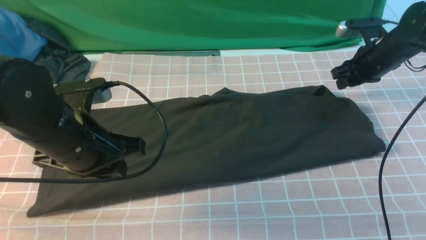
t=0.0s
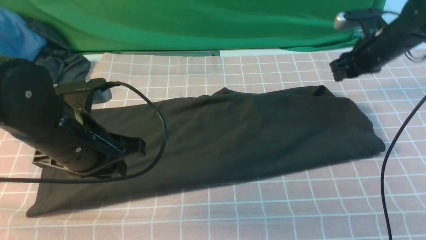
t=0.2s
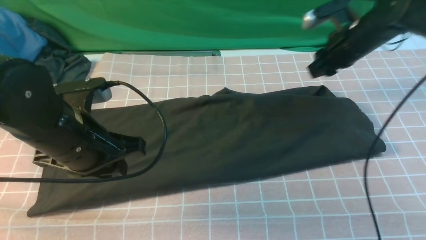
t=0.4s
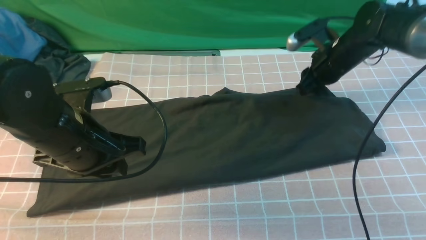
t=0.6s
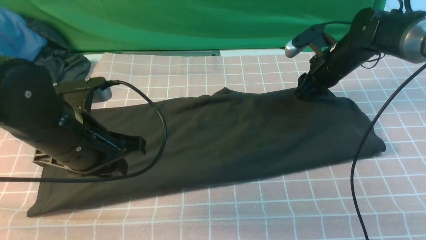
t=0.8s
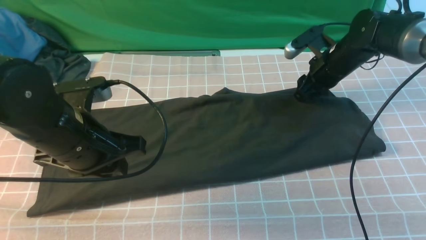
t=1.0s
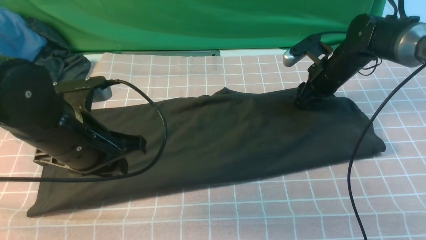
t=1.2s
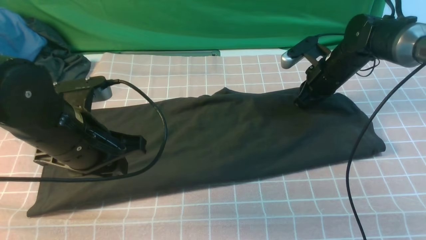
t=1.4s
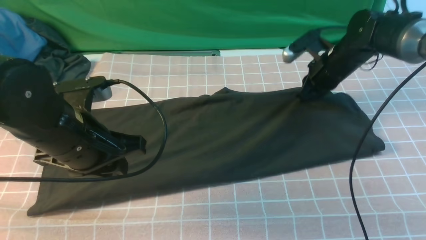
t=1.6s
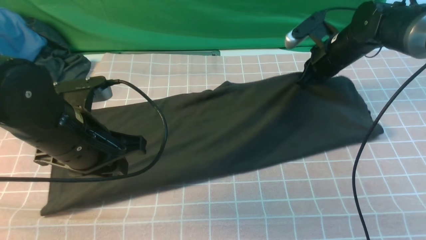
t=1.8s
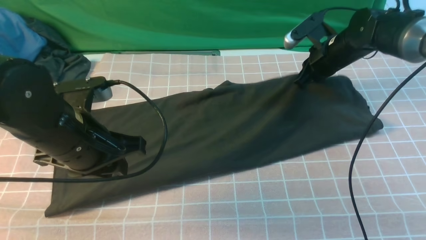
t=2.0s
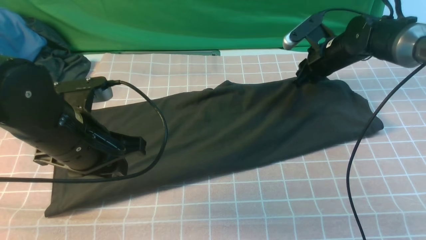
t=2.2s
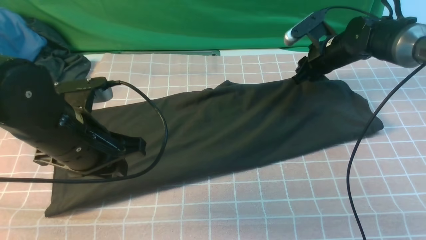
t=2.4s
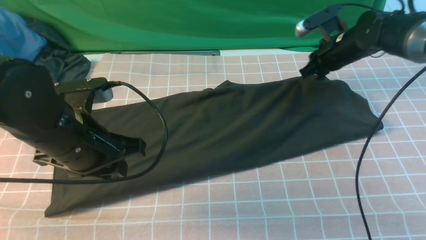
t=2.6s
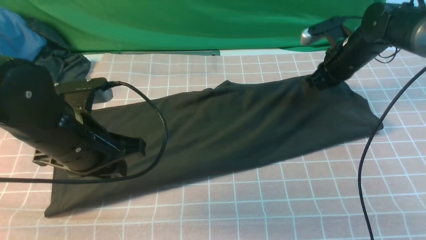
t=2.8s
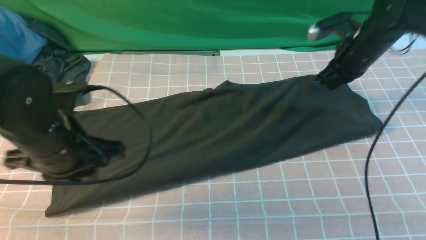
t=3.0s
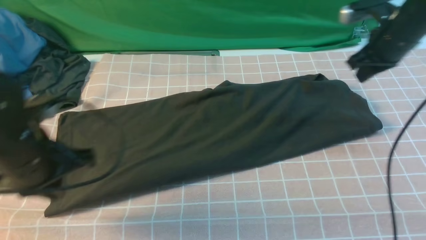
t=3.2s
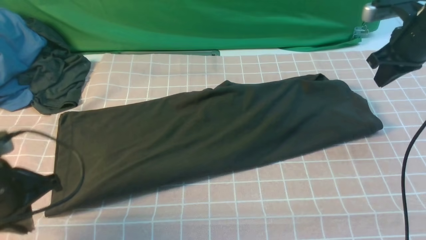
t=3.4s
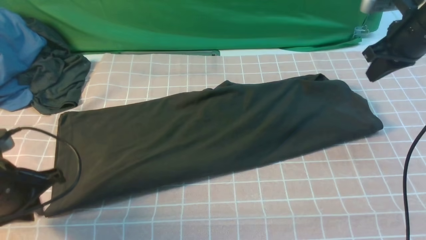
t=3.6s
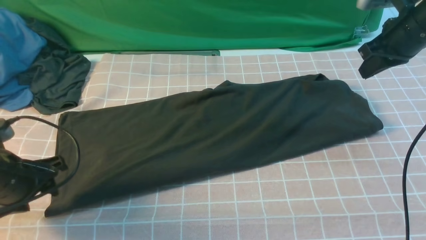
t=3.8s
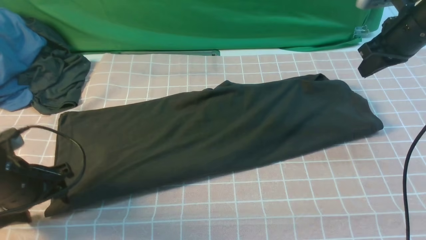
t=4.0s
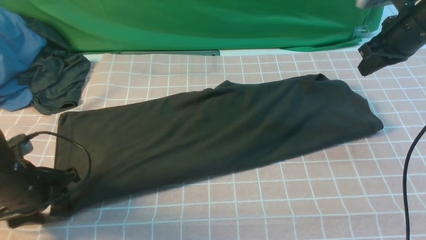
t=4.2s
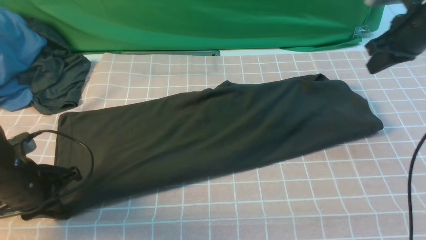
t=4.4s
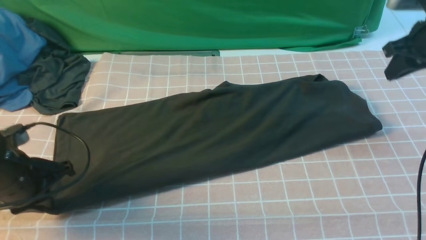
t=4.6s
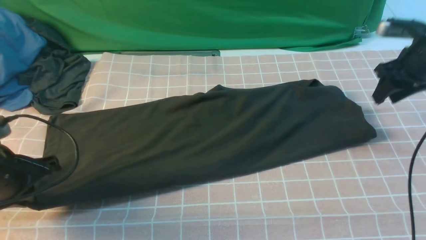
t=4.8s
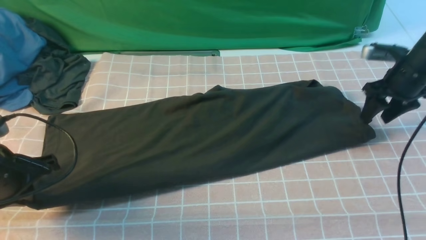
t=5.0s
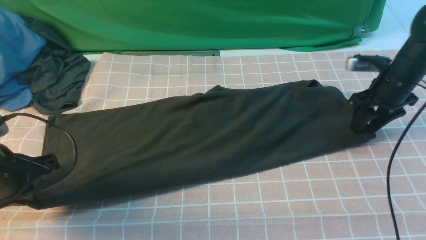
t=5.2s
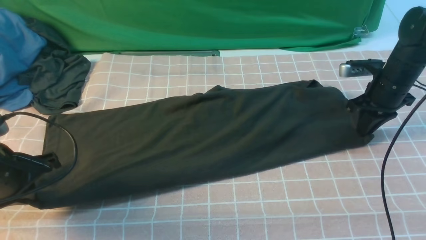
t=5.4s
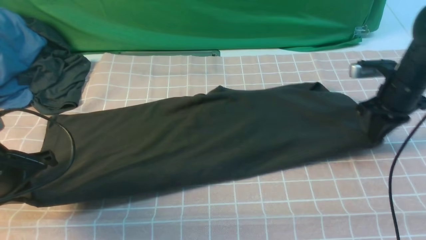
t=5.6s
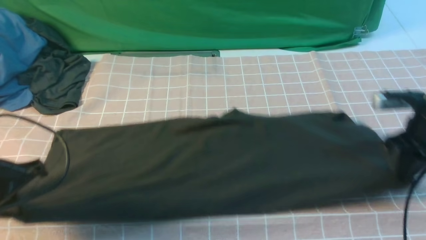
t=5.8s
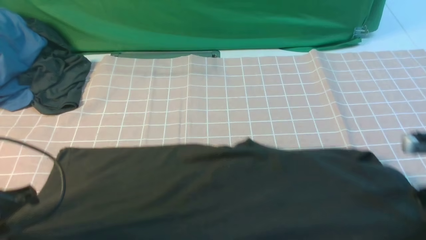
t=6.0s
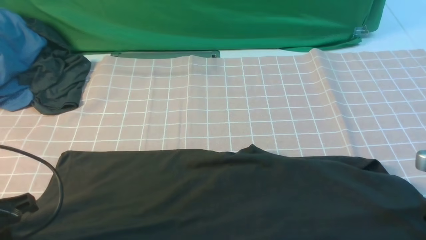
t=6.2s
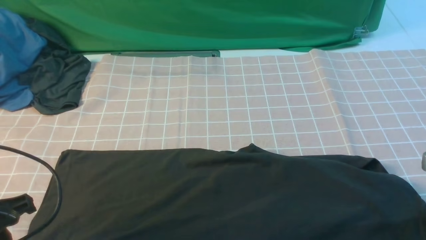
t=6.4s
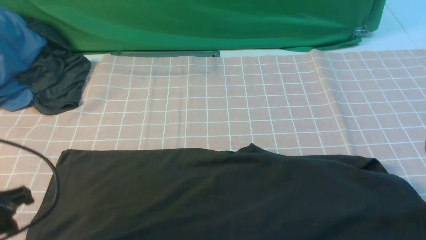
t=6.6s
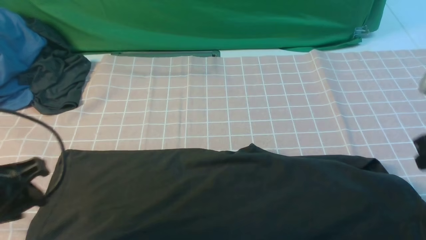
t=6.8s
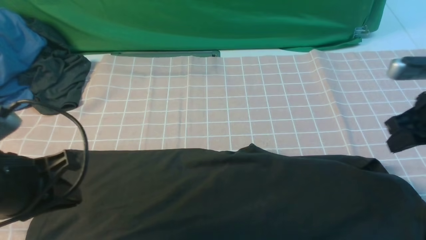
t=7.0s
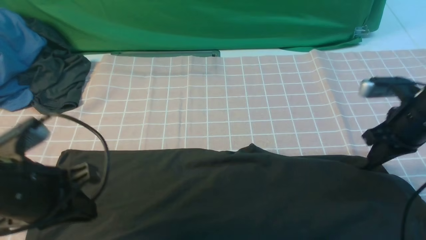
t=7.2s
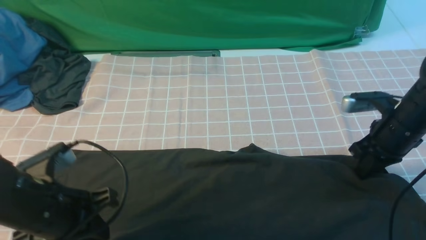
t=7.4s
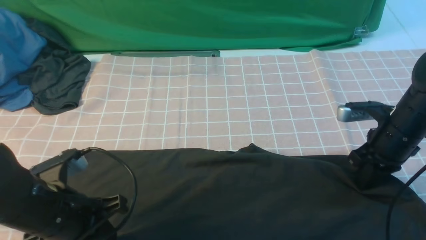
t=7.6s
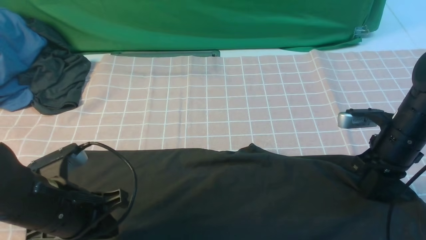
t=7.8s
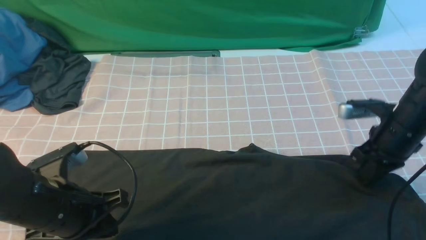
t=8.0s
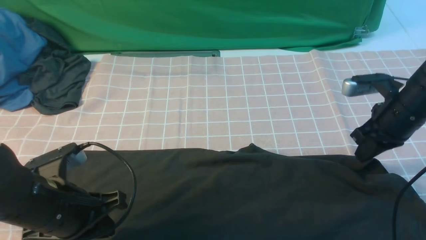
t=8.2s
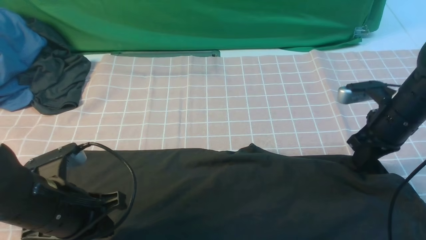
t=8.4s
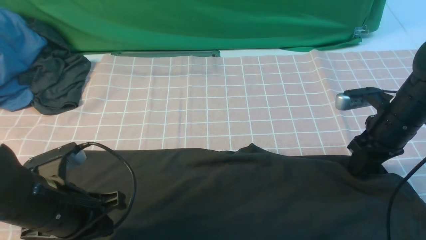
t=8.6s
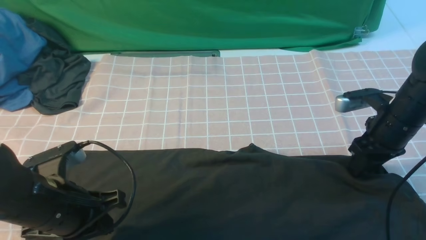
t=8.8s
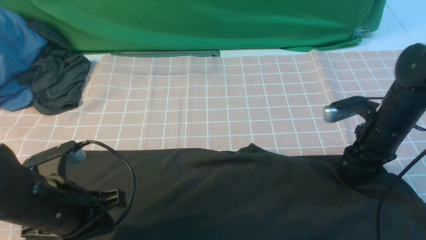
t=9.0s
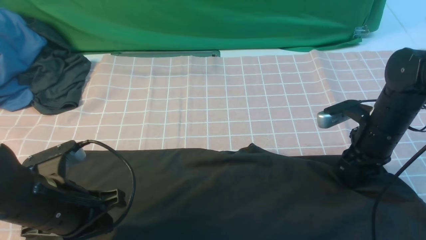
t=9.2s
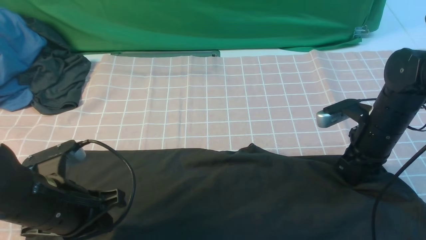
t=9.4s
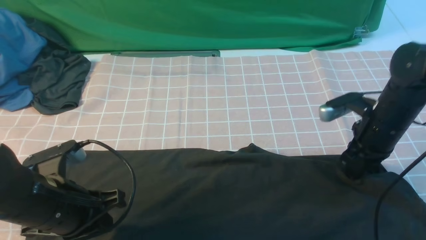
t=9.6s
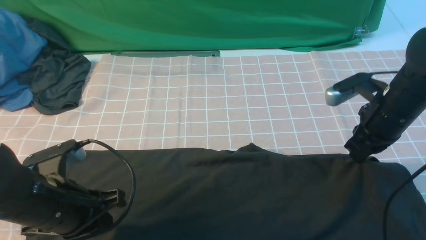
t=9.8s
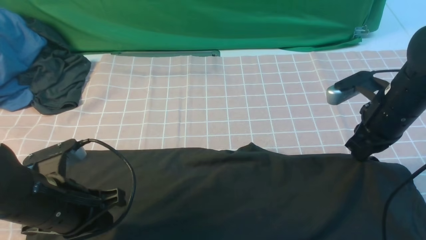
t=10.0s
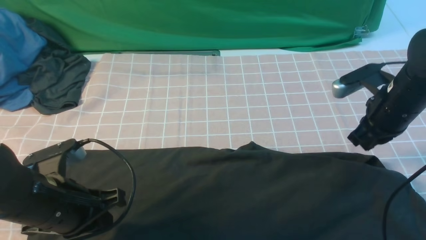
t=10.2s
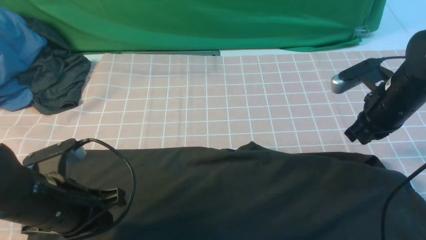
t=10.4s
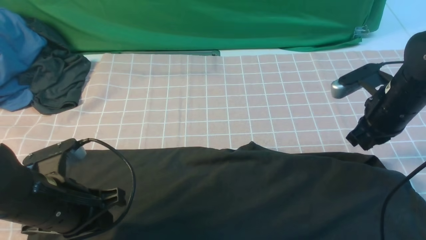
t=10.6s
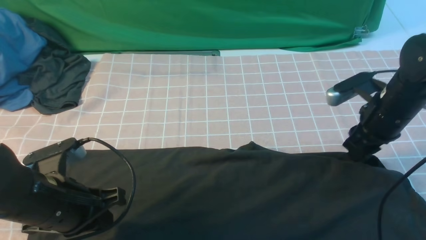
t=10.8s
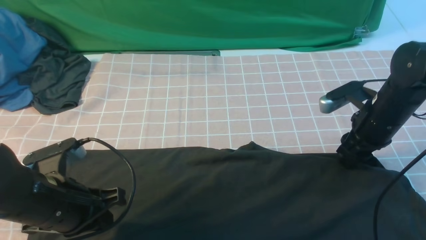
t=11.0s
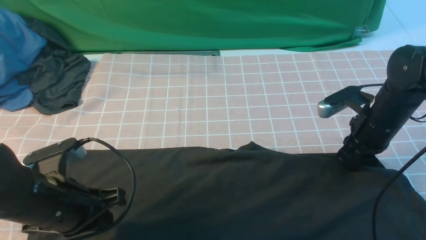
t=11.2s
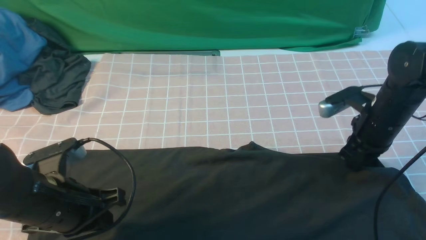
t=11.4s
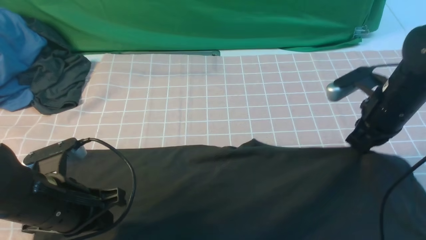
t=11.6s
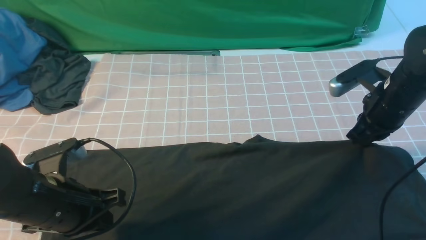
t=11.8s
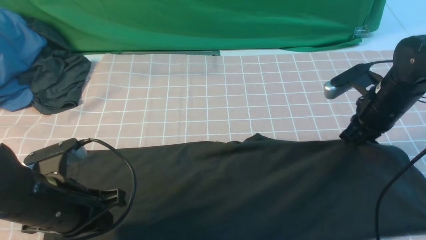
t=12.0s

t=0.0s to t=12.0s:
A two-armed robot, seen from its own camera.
t=0.0s to t=1.6s: The right gripper goes about 10 cm to the left, and closes up.
t=1.6s to t=3.0s: The right gripper moves some 5 cm, and opens, then closes once more.
t=3.0s to t=4.4s: The left gripper goes roughly 10 cm downward and to the left, and opens, then closes again. Meanwhile the right gripper shifts some 10 cm to the right and upward.
t=4.4s to t=6.0s: The right gripper travels backward and downward by approximately 20 cm, and opens, then closes again; the left gripper heads backward and upward, covering about 10 cm.
t=6.0s to t=7.6s: The right gripper heads forward and to the left, covering about 10 cm, and opens and closes again; the left gripper travels to the right by approximately 10 cm, and opens, then closes again.
t=7.6s to t=9.0s: The right gripper opens its fingers.
t=9.0s to t=10.4s: The right gripper closes its fingers.
t=10.4s to t=12.0s: The right gripper opens and closes again.

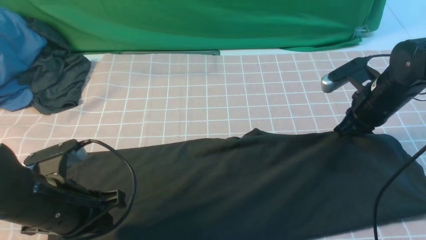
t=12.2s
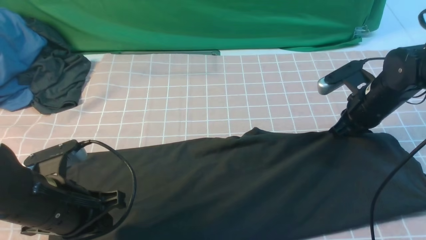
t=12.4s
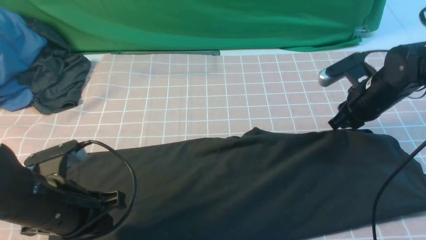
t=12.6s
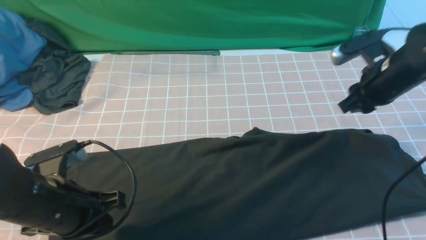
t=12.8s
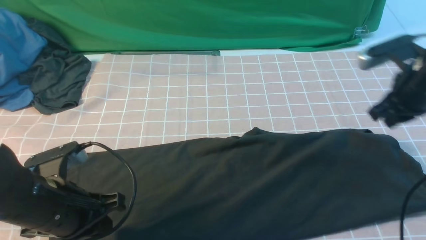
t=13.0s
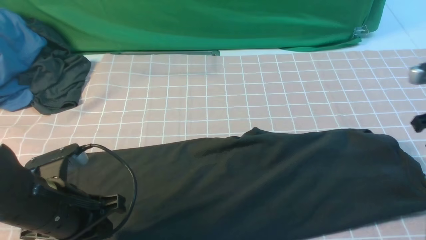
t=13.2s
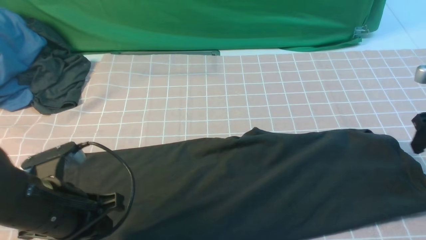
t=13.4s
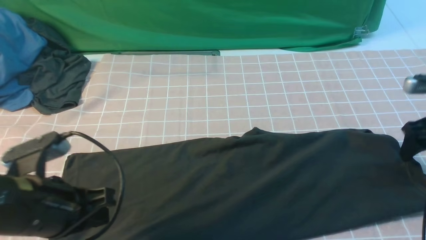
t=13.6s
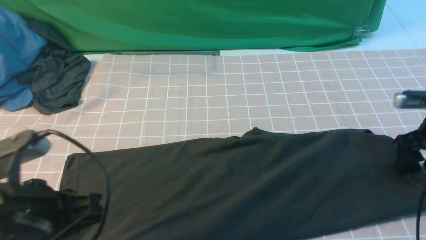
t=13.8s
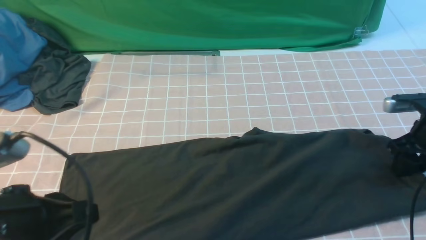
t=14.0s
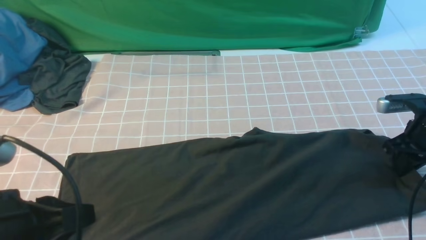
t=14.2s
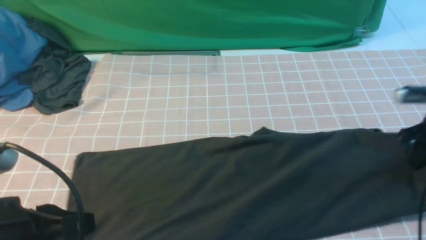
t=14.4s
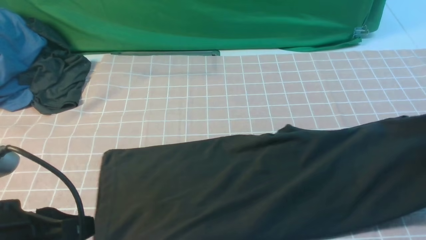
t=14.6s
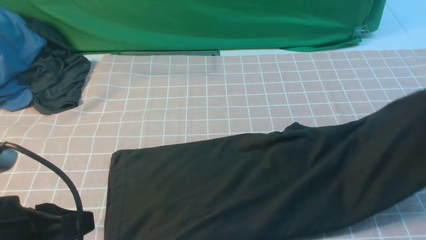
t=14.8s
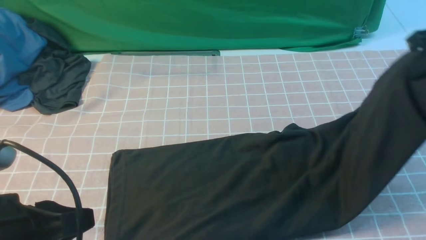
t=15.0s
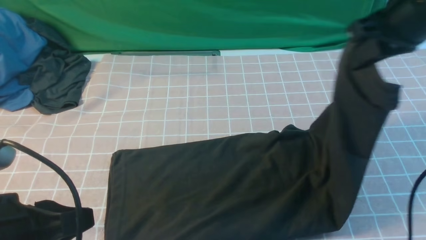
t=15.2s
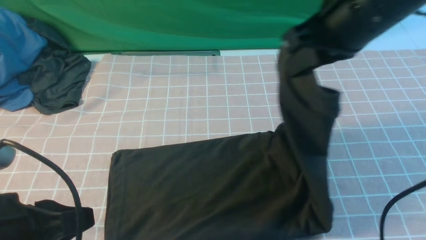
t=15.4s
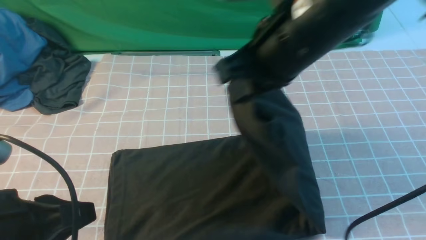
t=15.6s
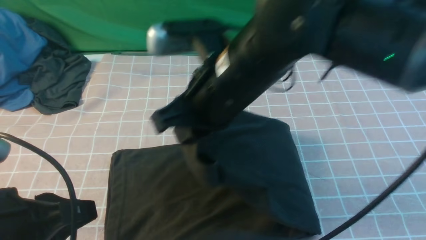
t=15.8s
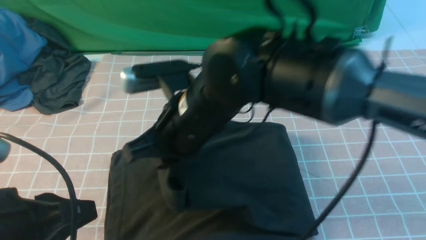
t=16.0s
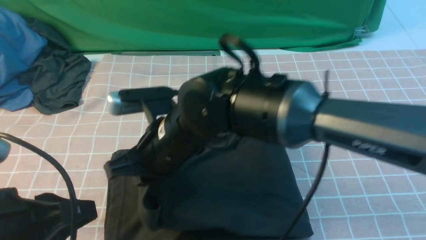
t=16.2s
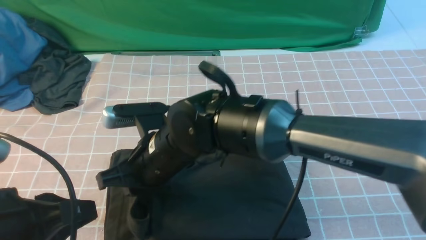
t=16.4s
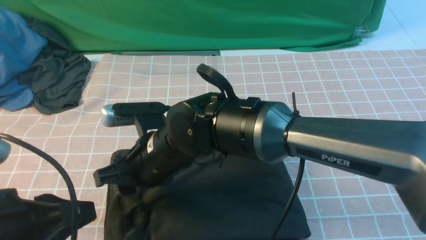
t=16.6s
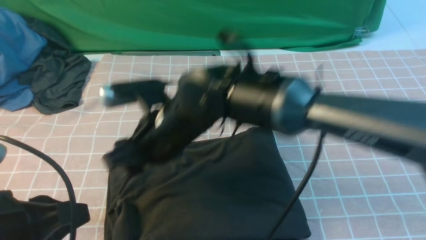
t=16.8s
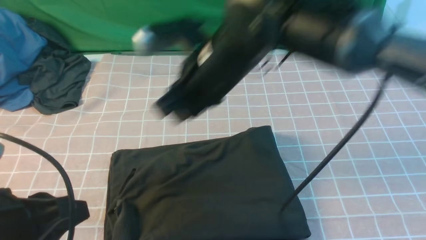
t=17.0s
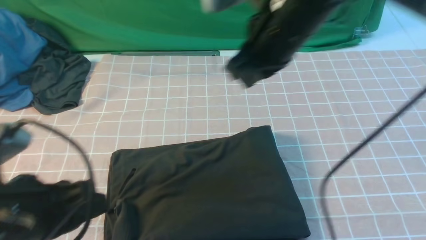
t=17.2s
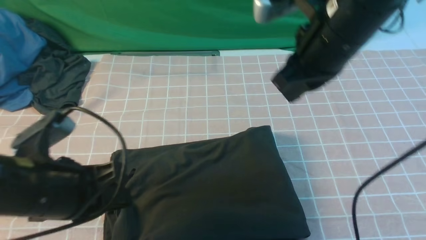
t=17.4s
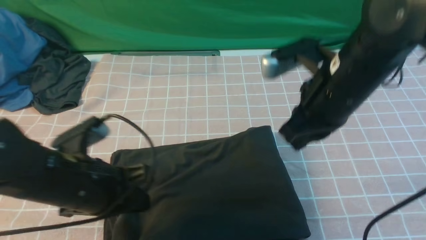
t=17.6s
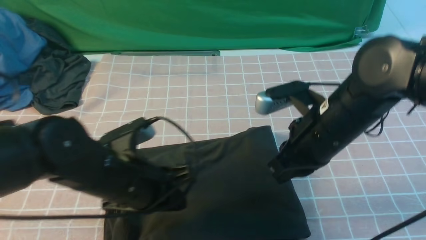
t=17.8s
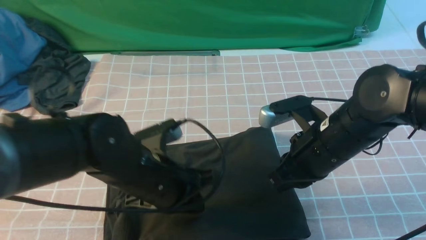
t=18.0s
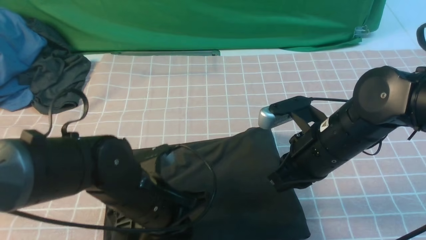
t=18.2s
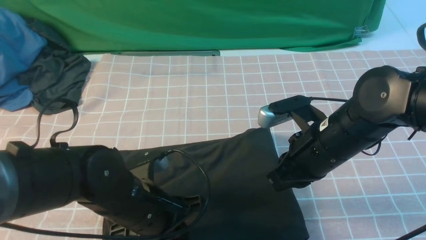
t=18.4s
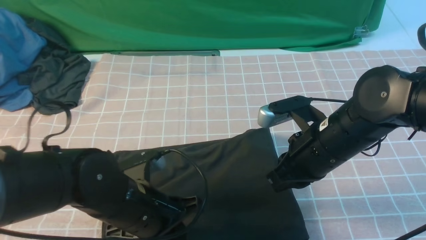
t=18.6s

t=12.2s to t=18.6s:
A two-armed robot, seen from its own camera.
Step, t=14.2s to t=17.0s: use the right arm to drag the right edge of the fabric to the left and folds it over the left edge.
t=12.2s to t=13.8s: The left gripper moves upward and backward, approximately 10 cm. The right gripper goes approximately 10 cm to the right, and opens.
t=13.8s to t=15.4s: The right gripper travels to the left and upward by roughly 30 cm, and closes up.
t=15.4s to t=17.0s: The right gripper moves to the left and downward, about 15 cm, and opens, then closes again.
t=17.0s to t=18.6s: The right gripper moves to the right, downward and backward, about 15 cm, and closes, while the left gripper goes about 15 cm to the right, downward and forward.
